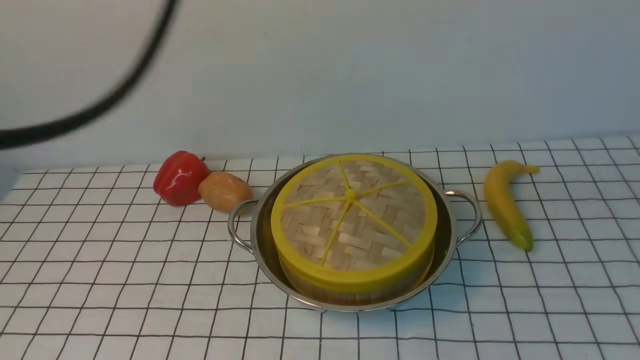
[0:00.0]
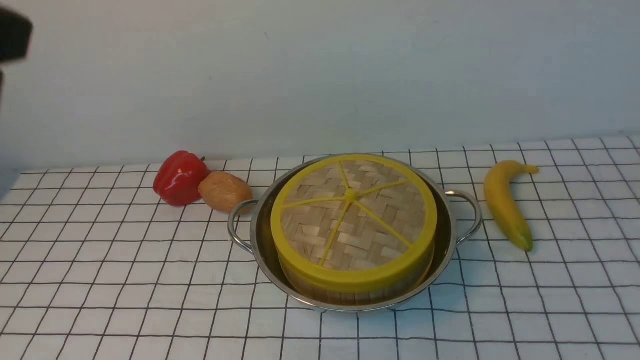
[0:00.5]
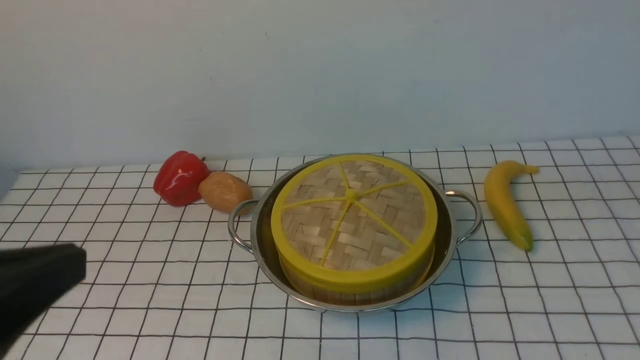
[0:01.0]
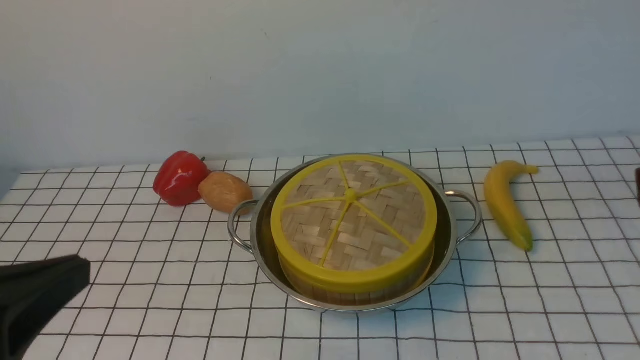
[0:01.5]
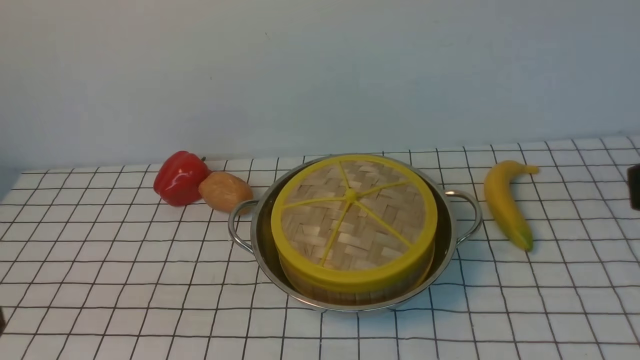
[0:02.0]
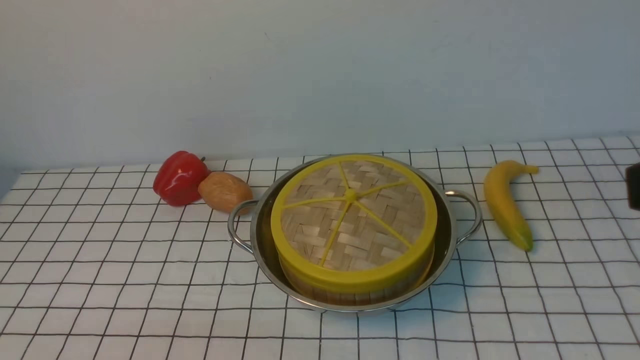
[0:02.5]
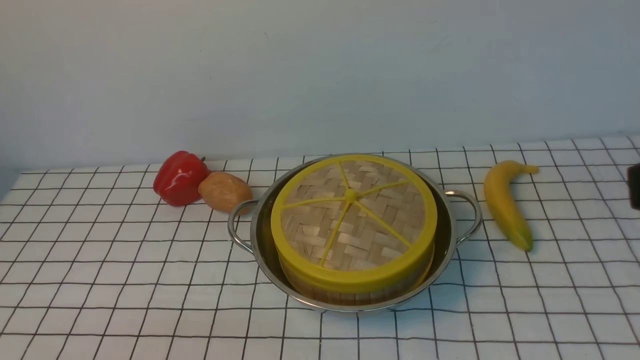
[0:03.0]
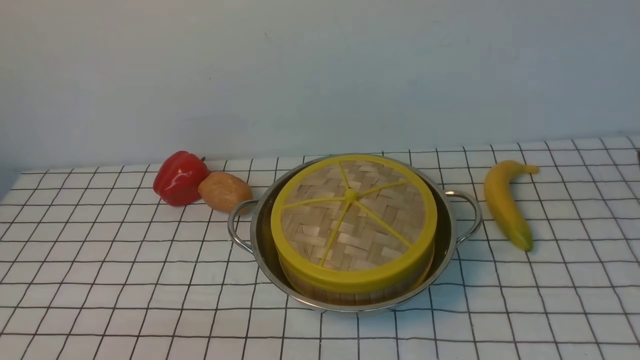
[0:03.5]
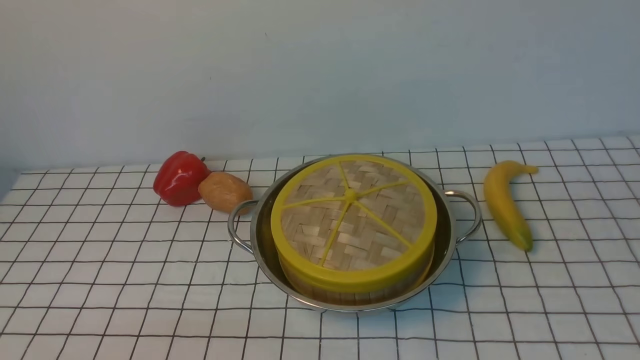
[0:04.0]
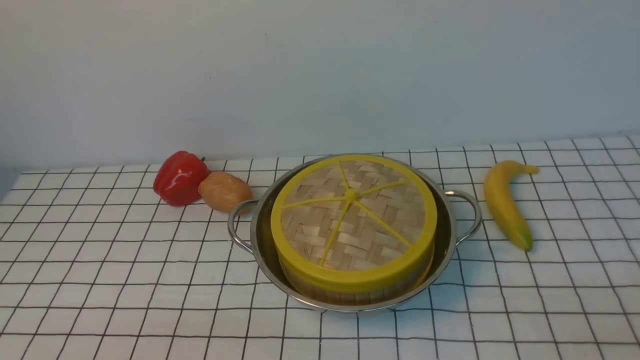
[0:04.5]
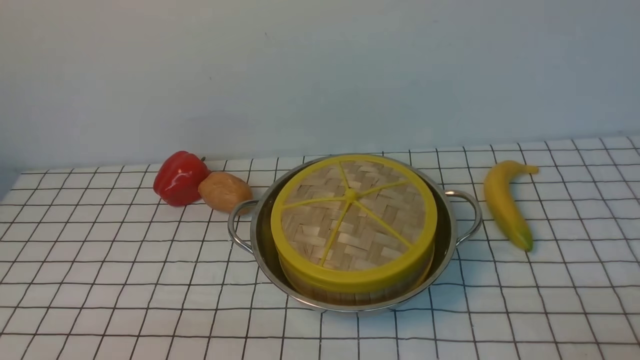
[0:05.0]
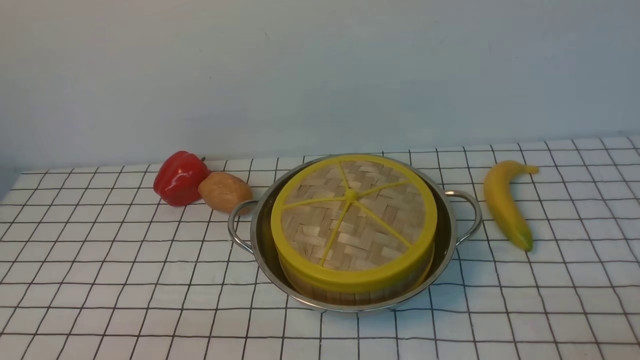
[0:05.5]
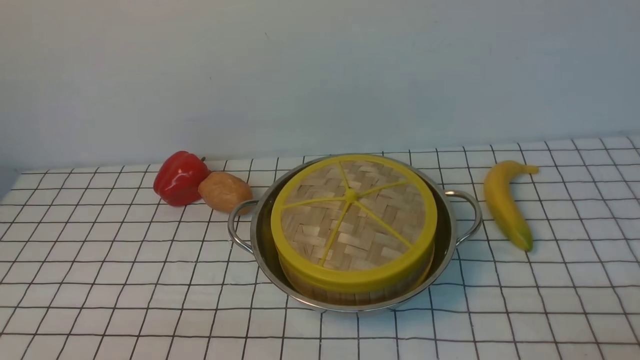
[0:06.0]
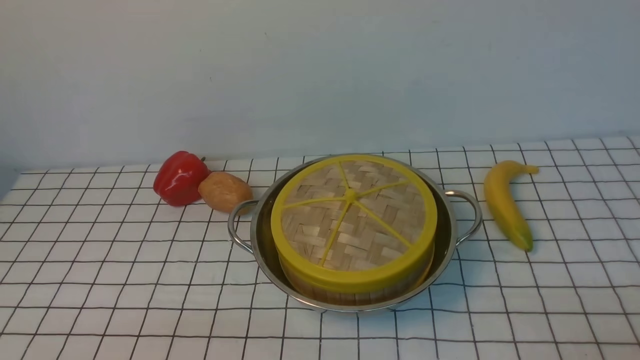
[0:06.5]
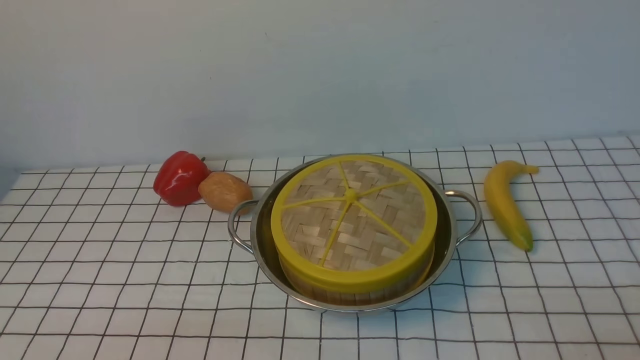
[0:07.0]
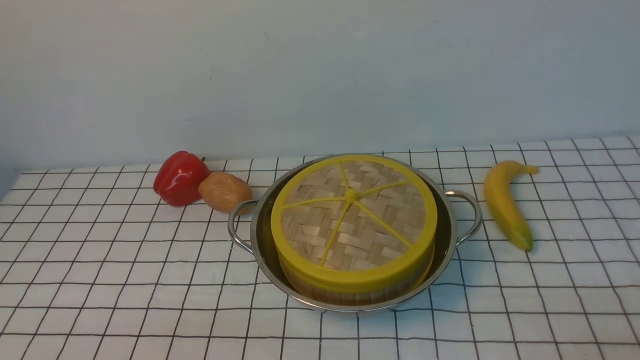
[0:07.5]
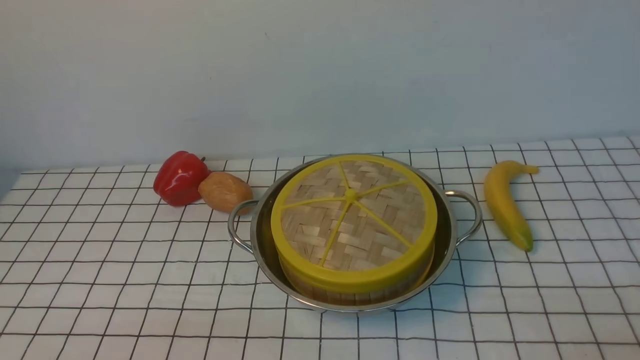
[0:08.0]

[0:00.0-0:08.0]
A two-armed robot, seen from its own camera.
Task of the whole recording: place the steamer in the pot on the white tablecloth, and put the lid on the steamer.
0:00.0 to 0:02.0: The left gripper heads downward, backward and to the left, covering roughly 35 cm.
0:06.0 to 0:08.0: The two grippers keep their place.

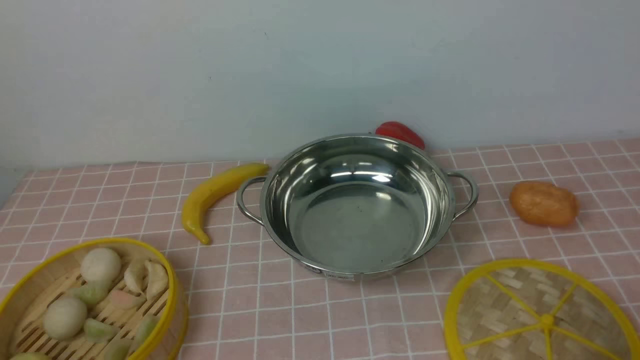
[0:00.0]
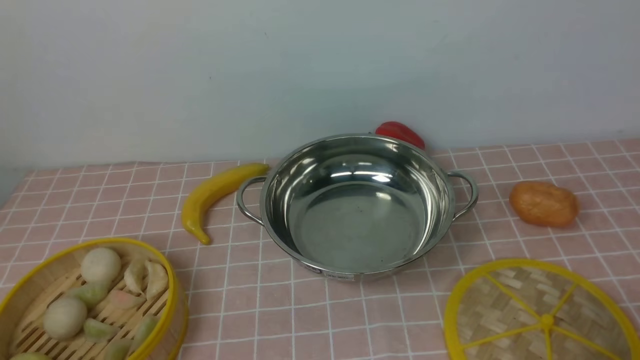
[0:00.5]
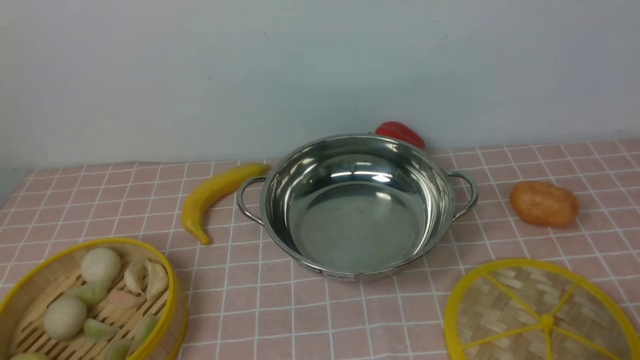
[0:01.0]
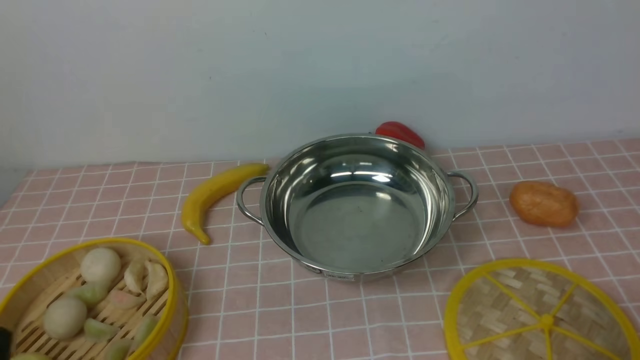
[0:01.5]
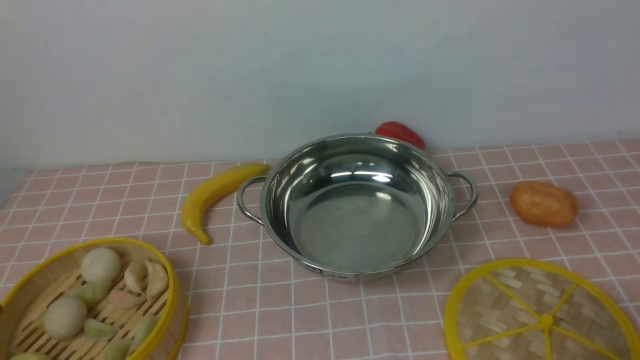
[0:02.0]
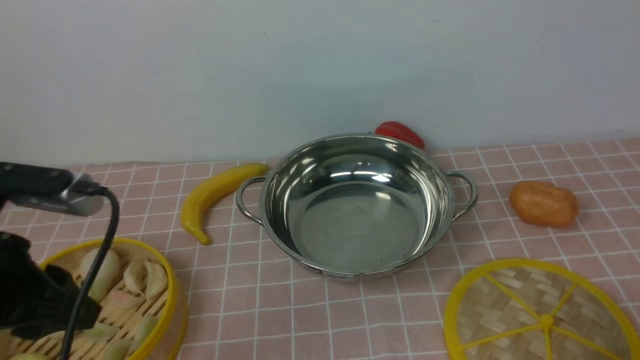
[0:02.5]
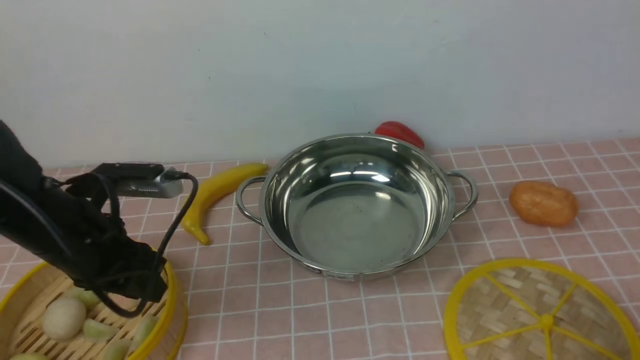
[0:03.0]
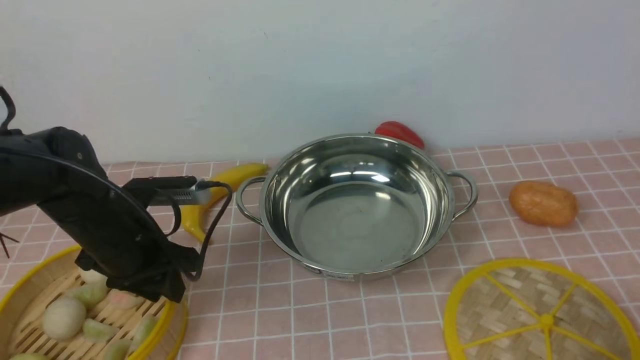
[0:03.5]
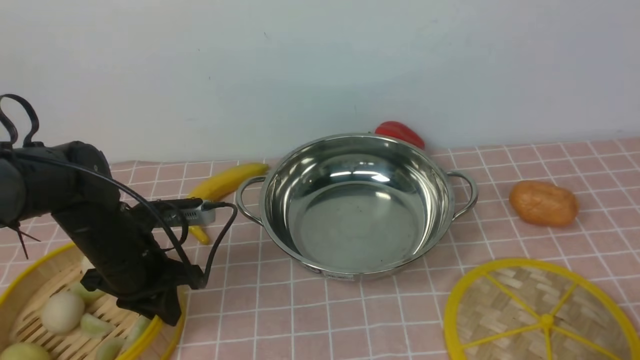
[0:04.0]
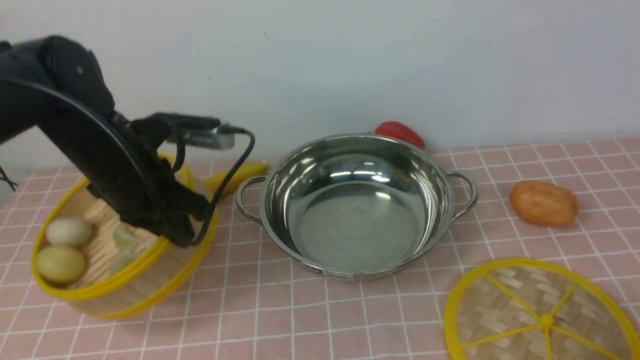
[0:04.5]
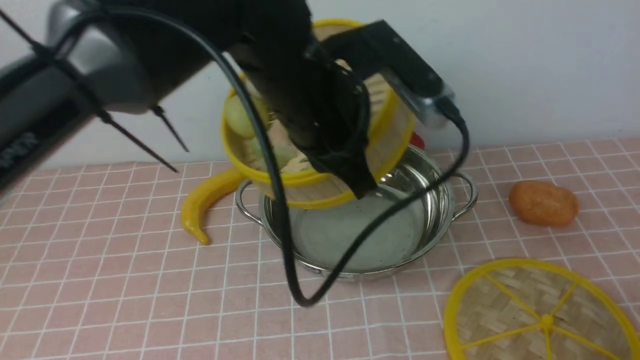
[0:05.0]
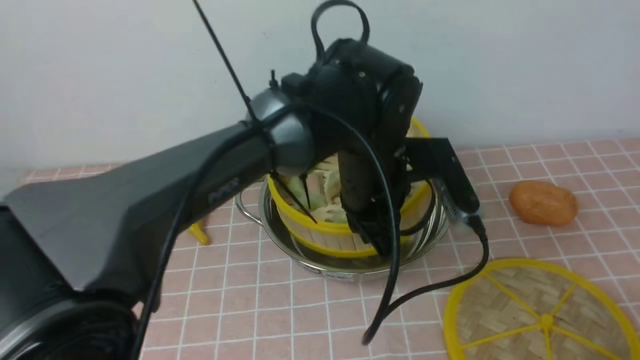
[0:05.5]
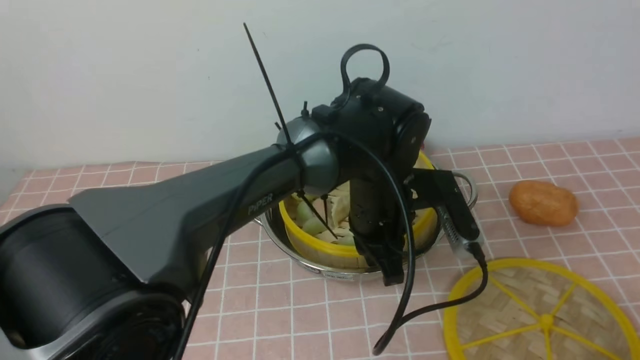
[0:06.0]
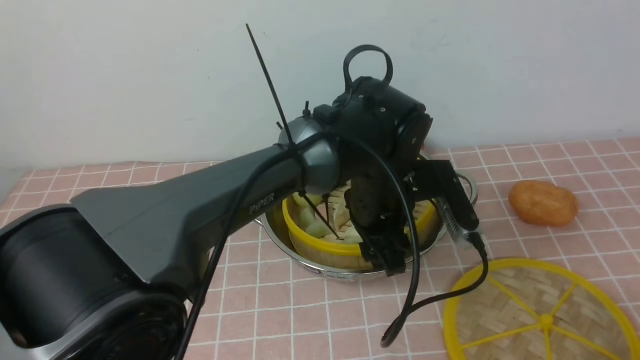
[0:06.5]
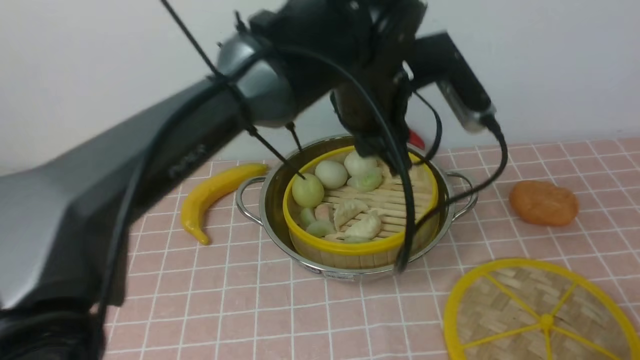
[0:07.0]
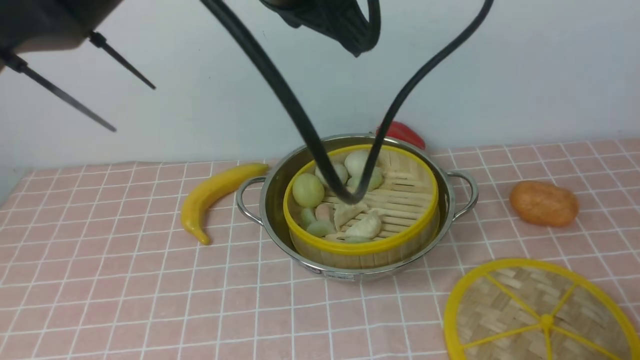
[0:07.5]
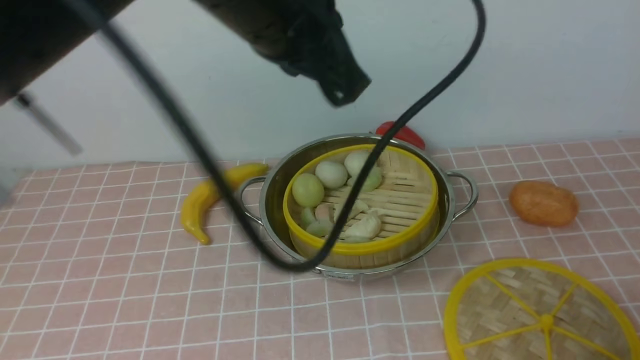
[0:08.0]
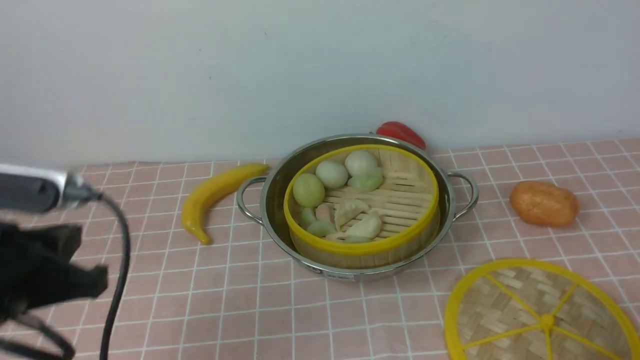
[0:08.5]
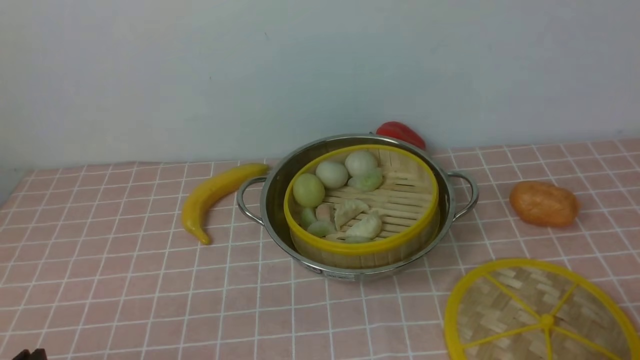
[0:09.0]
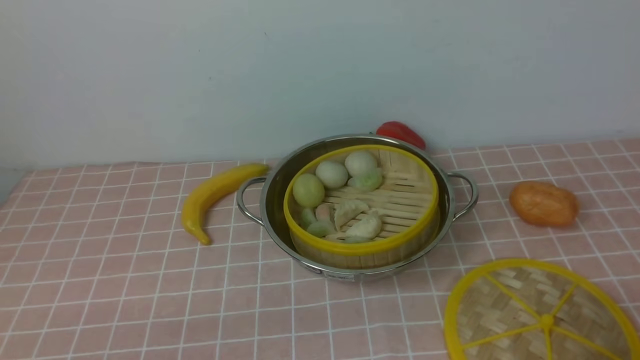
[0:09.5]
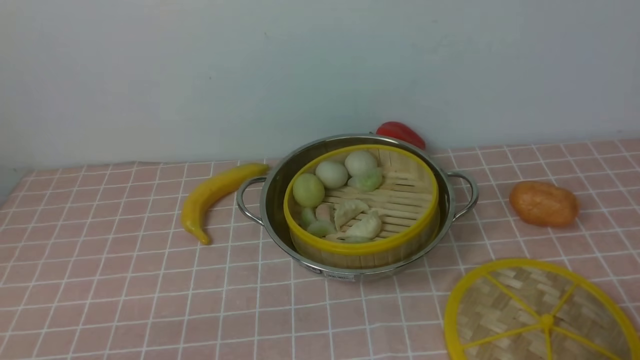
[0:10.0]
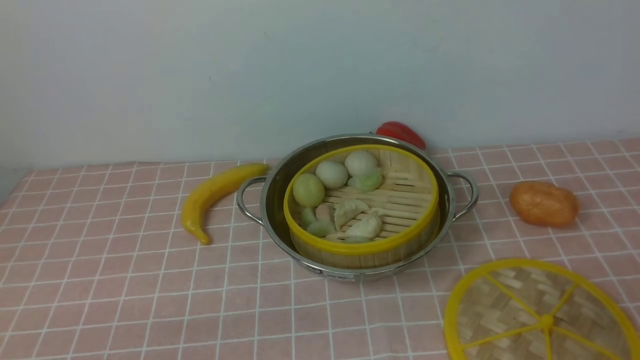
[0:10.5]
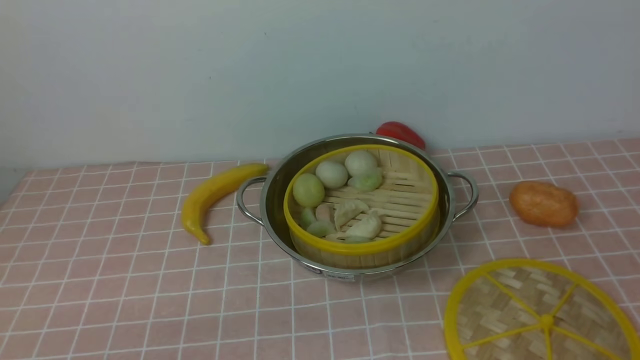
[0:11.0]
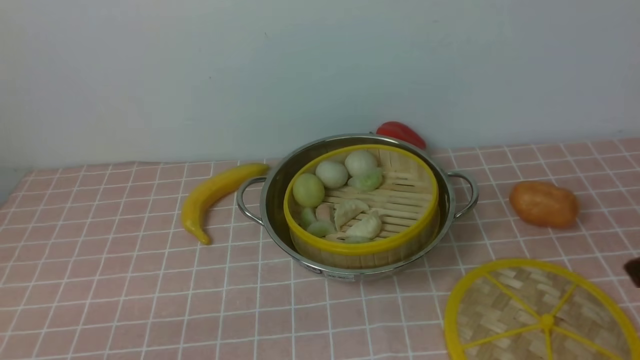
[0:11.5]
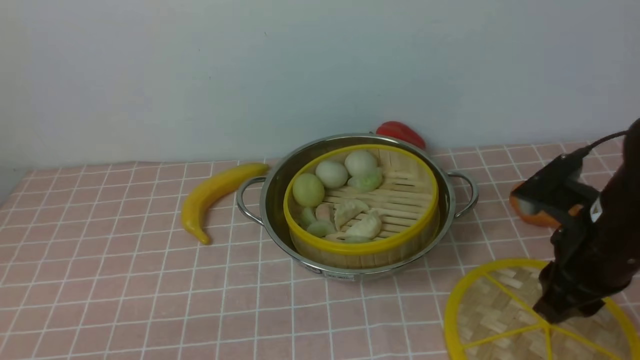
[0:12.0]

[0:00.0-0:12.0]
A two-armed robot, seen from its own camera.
Task of the whole recording: place the steamer in the pot on the pink tablecloth, and put the lid on the steamer.
Step, 0:00.0 to 0:04.0: use the left arm to lift the steamer closest to it.
Step, 0:04.5 to 0:06.5: use the left arm to put the steamer into the iron steamer pot in the middle.
0:02.0 to 0:04.0: The left gripper shifts approximately 30 cm forward and downward.
0:04.0 to 0:06.0: The left gripper is displaced to the right by some 25 cm.
0:06.0 to 0:08.0: The left gripper moves upward and to the left, approximately 25 cm, and opens and closes again.
0:08.0 to 0:10.0: The left gripper is displaced downward, backward and to the left by some 40 cm.
0:10.0 to 0:12.0: The right gripper shifts some 20 cm forward.
